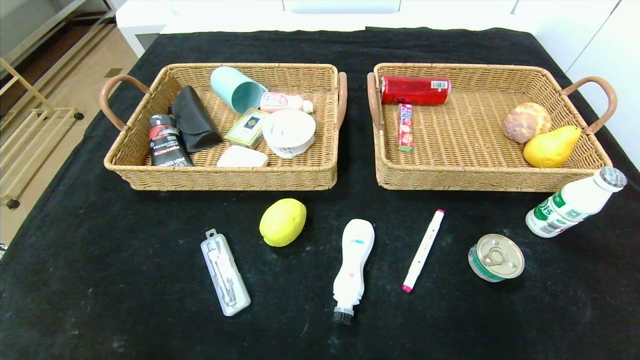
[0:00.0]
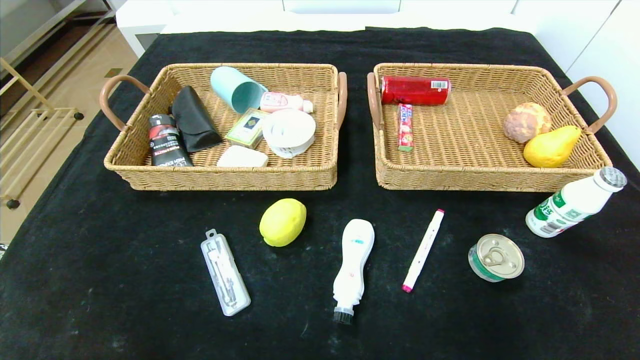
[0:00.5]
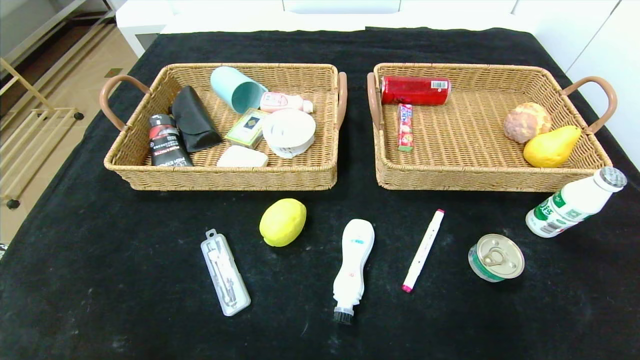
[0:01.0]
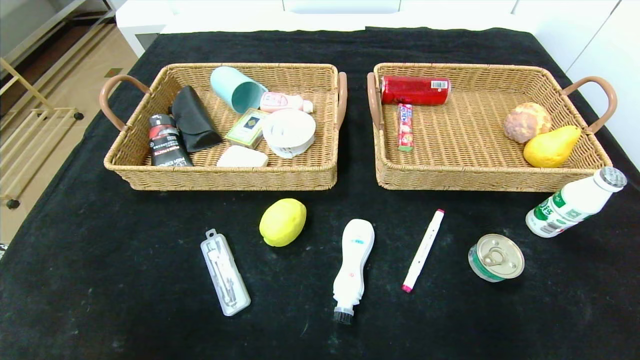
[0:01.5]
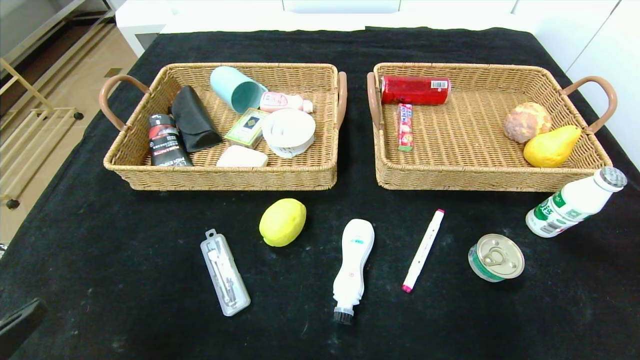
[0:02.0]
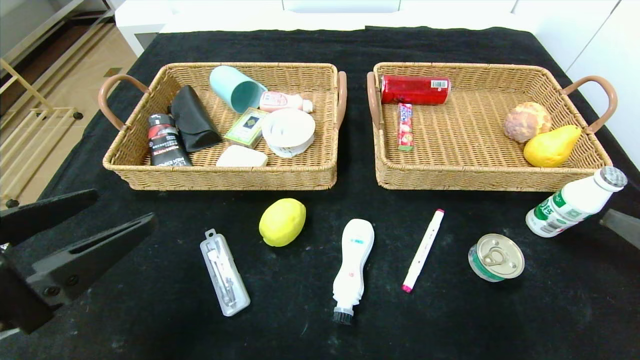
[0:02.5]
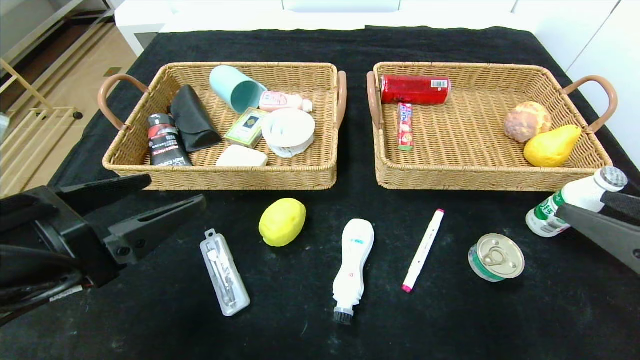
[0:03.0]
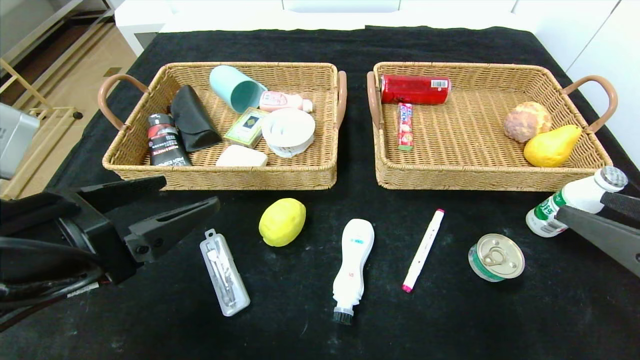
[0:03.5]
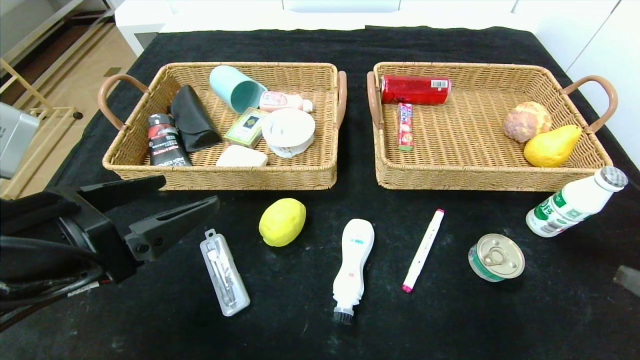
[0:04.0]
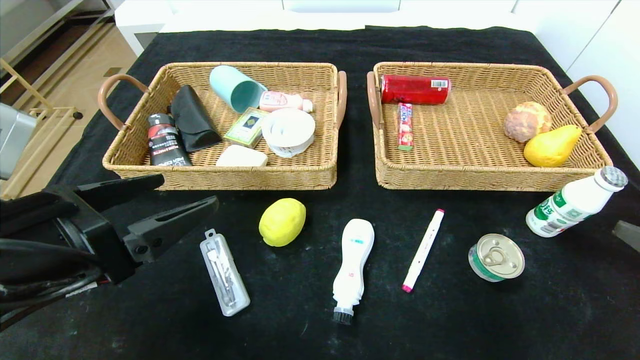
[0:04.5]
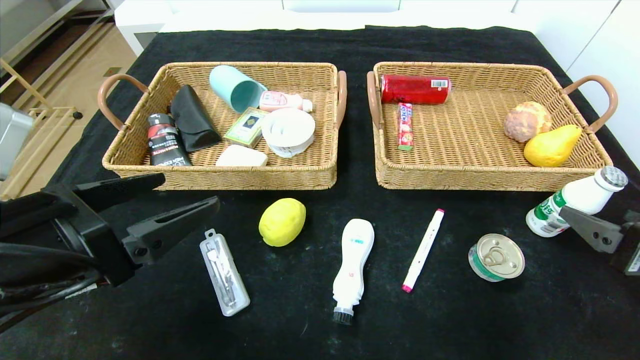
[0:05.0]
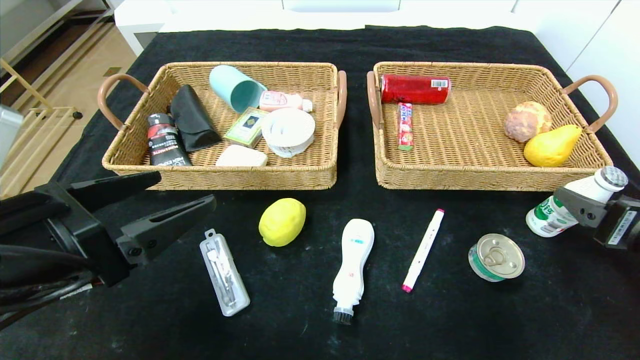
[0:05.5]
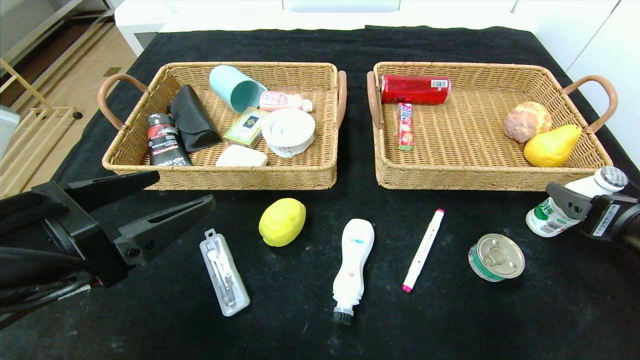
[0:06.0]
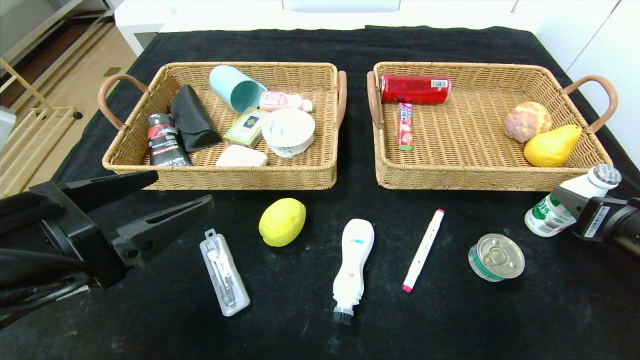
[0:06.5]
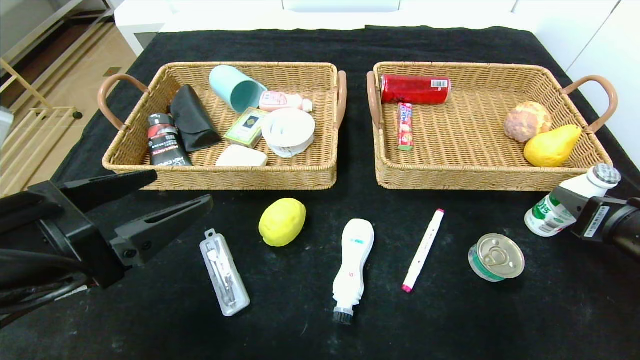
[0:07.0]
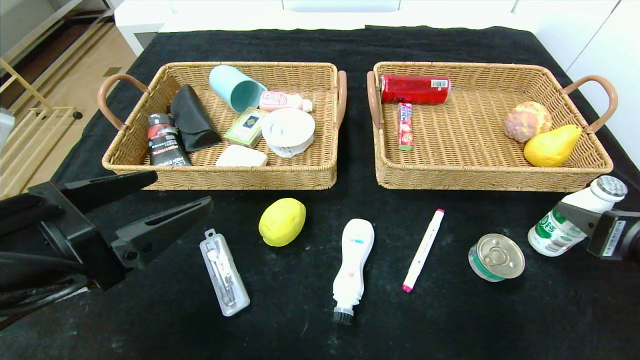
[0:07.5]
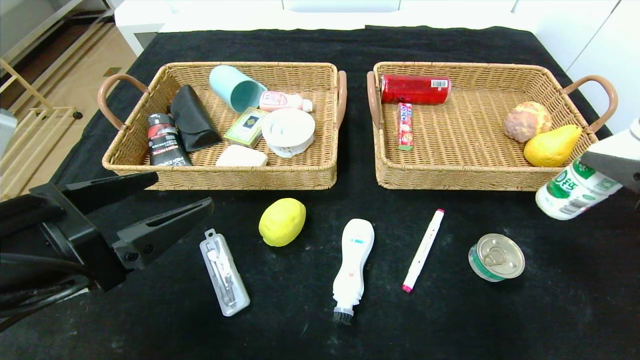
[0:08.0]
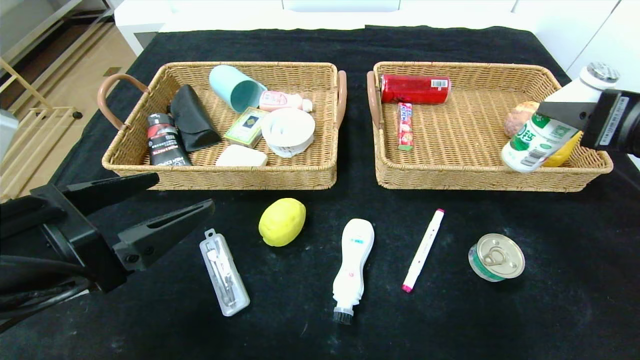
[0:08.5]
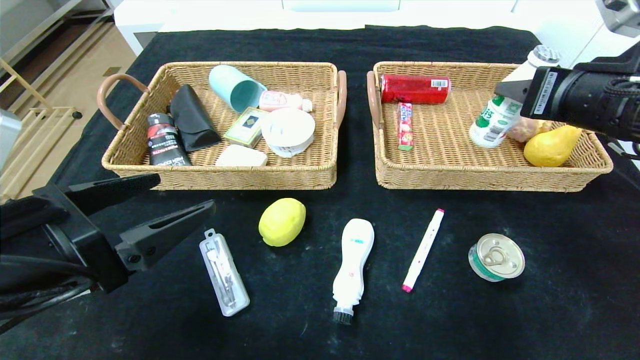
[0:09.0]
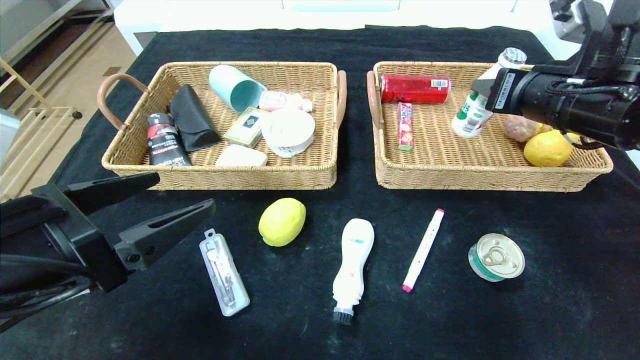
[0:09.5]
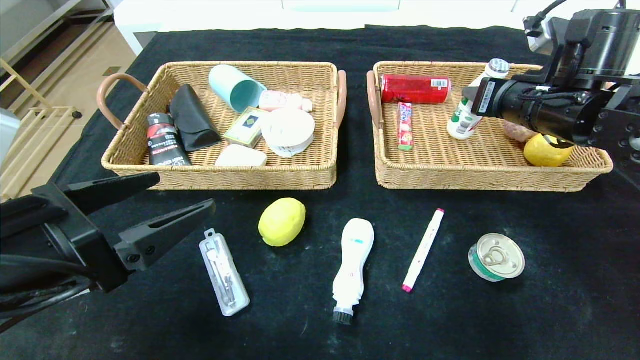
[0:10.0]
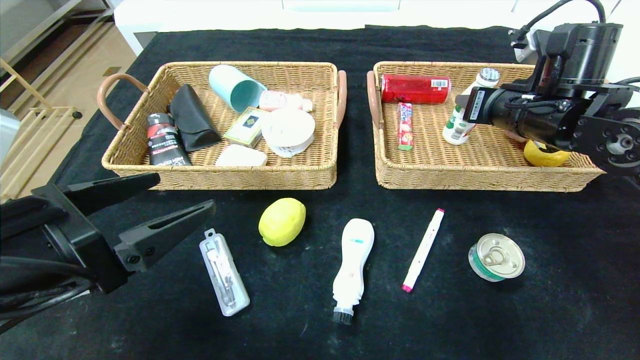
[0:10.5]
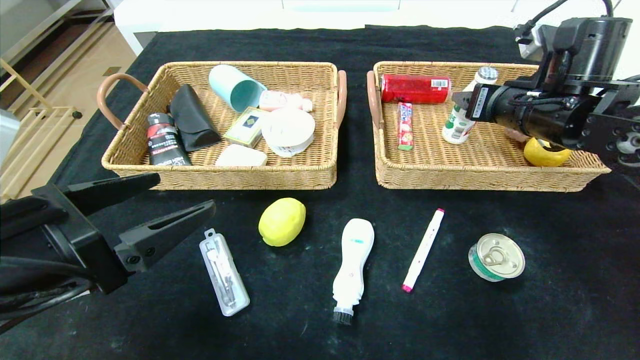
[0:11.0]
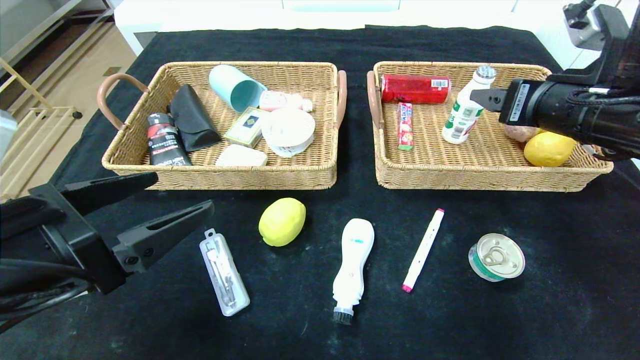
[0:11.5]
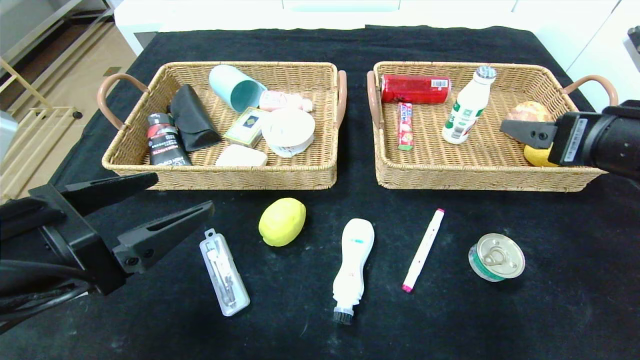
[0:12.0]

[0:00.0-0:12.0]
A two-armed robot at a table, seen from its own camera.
Step, 0:00.0 to 0:11.0: Grasp the ad milk and put it in the right basket.
0:02.0 to 0:04.0: The left gripper goes some 15 cm forward.
0:04.0 to 0:06.0: The right gripper travels forward by about 15 cm.
0:06.0 to 0:08.0: The right gripper moves upward, some 10 cm, and closes.
0:08.0 to 0:10.0: The right gripper goes about 20 cm forward.
0:10.0 to 0:12.0: The right gripper goes roughly 15 cm backward, and opens its fingers.

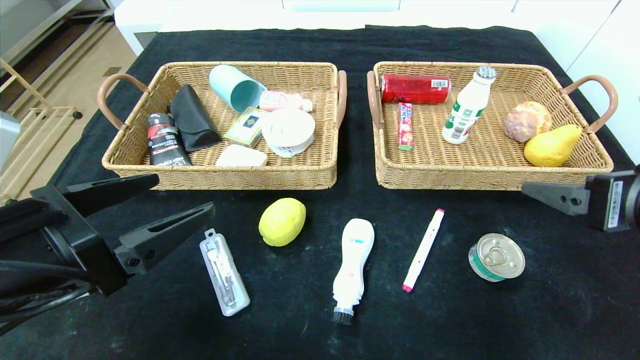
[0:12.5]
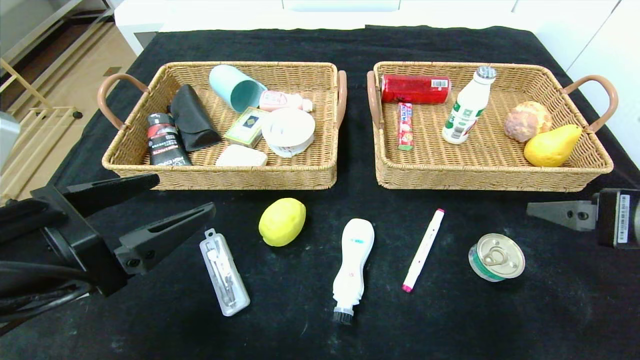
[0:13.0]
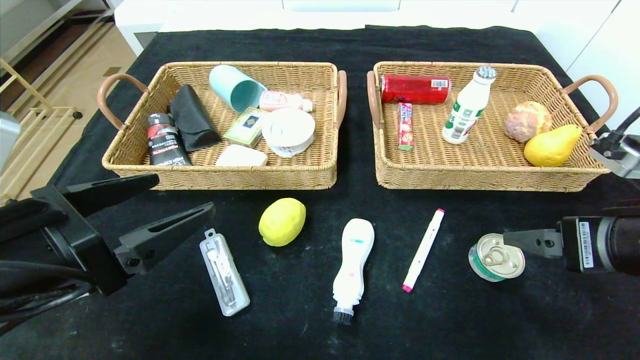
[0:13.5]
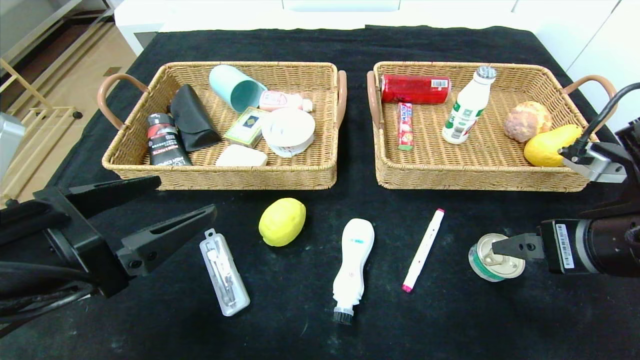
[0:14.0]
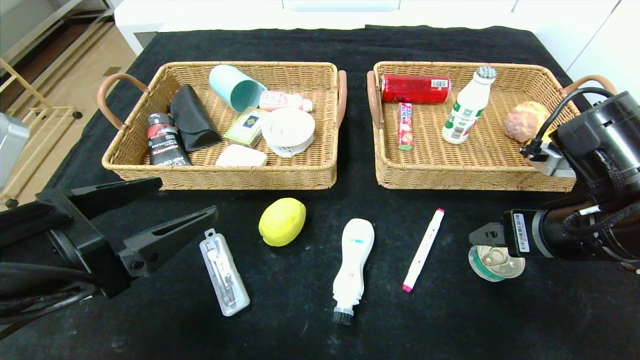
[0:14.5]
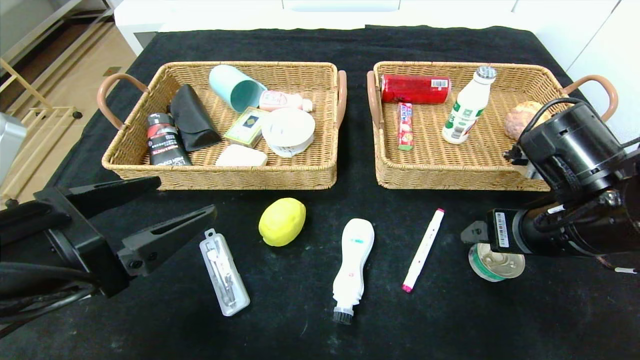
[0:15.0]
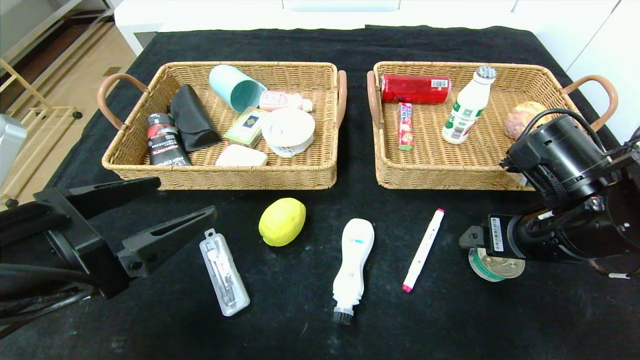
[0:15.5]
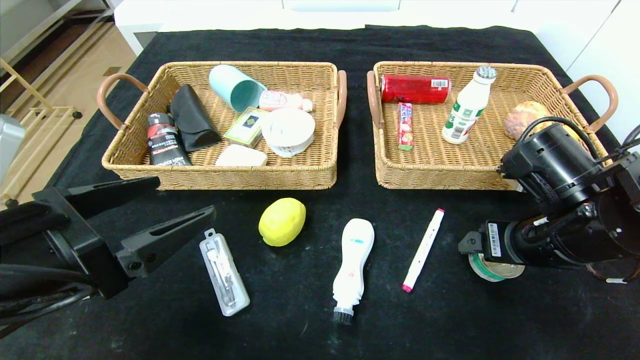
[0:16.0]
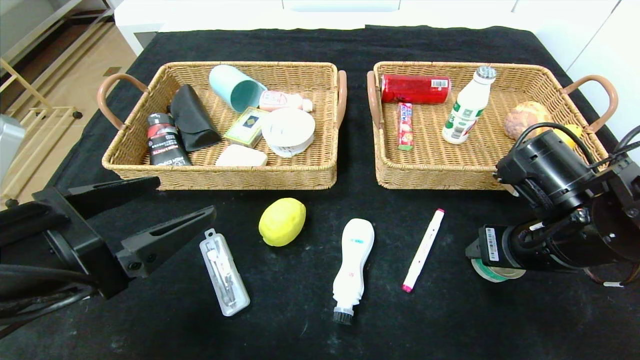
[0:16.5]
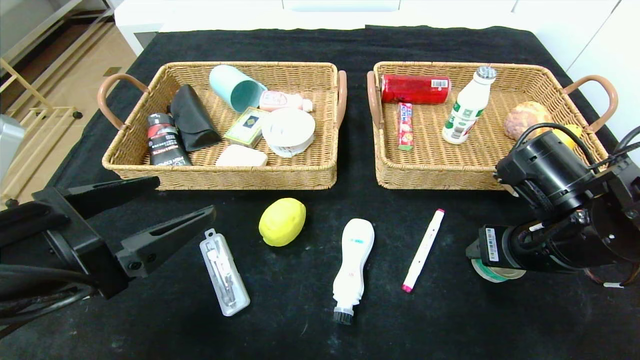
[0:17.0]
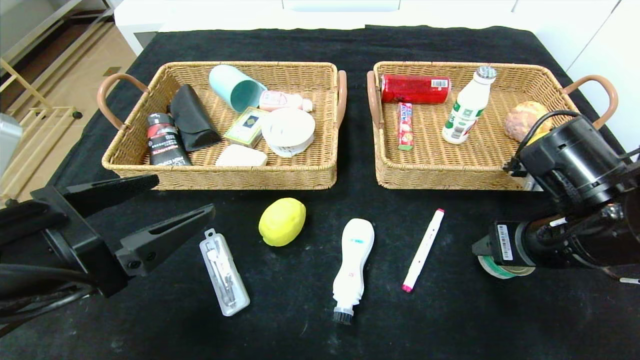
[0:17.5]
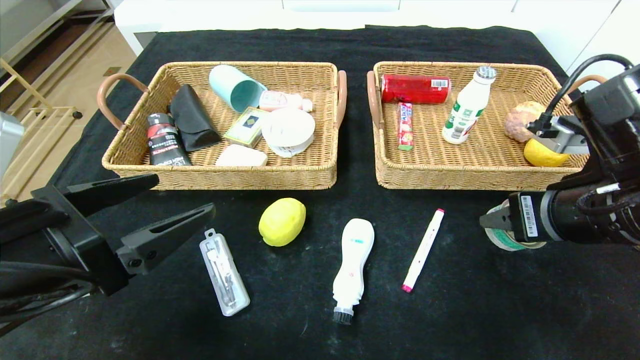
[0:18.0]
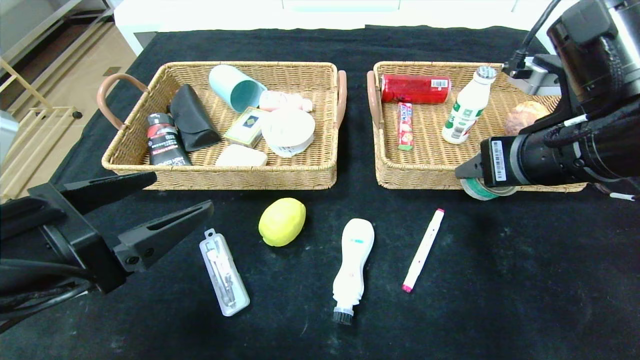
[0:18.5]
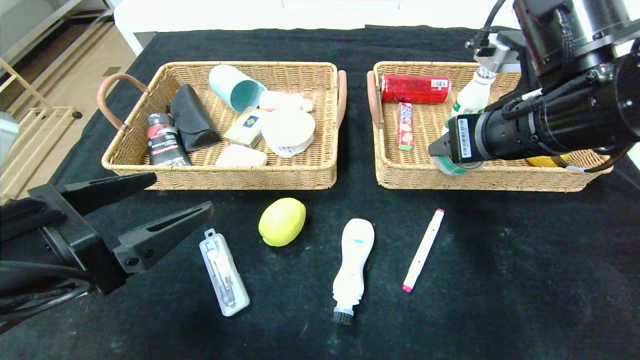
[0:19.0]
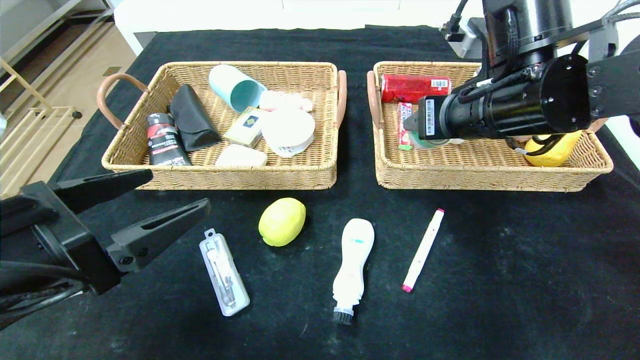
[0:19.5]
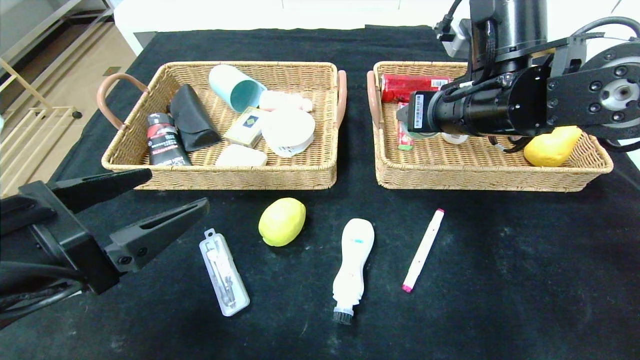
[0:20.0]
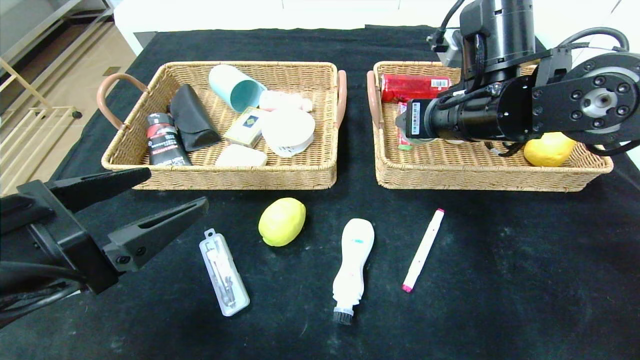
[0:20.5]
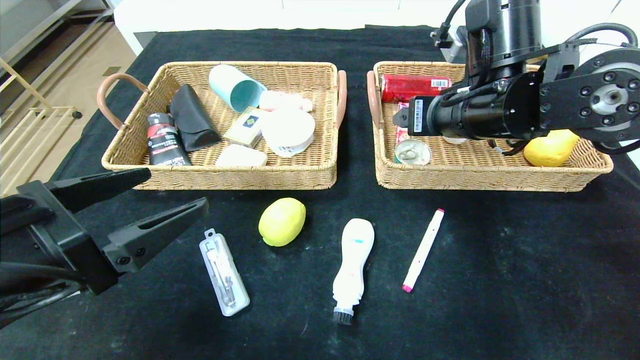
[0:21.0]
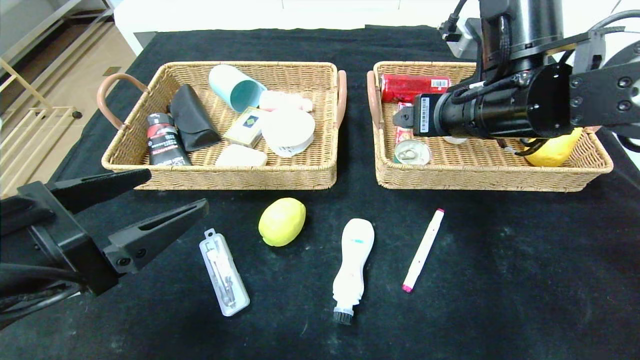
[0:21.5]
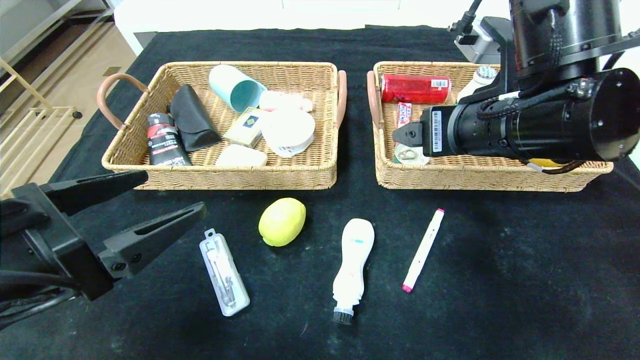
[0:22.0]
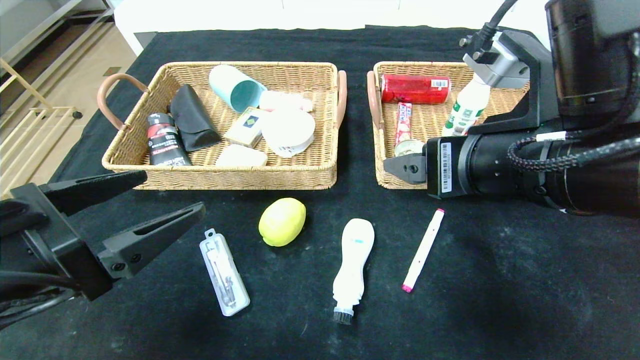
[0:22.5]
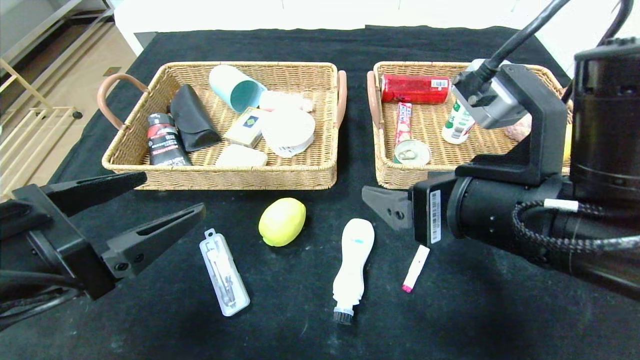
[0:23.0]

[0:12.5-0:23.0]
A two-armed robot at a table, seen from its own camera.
Step, 0:12.5 to 0:21.0: Grasp the can and put it in the right basket.
0:12.5 to 0:14.5: The right gripper is displaced to the left by about 5 cm.
0:14.5 to 0:16.5: The right gripper closes up.
0:16.5 to 0:19.0: The right gripper moves upward, roughly 10 cm.
0:19.0 to 0:21.0: The right gripper travels forward by some 5 cm.
0:21.0 to 0:23.0: The right gripper heads backward, covering about 15 cm.
